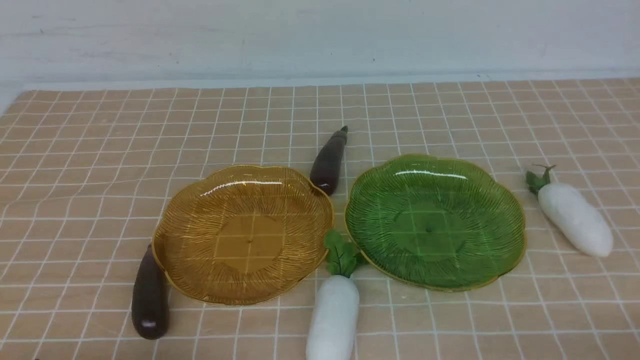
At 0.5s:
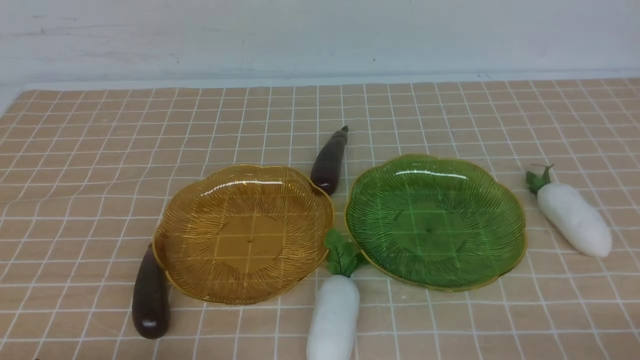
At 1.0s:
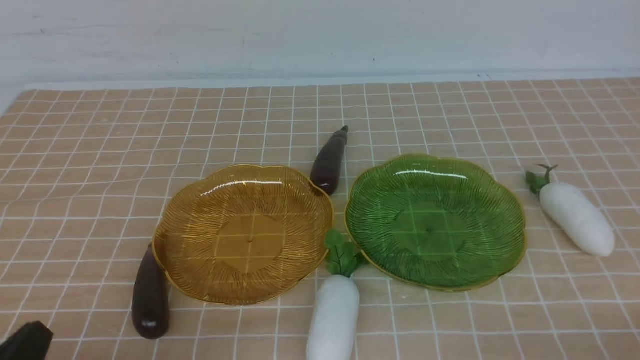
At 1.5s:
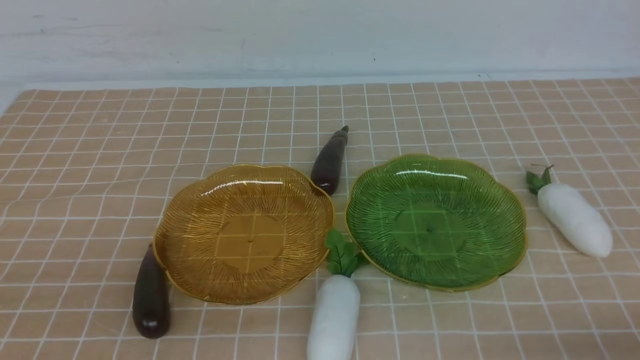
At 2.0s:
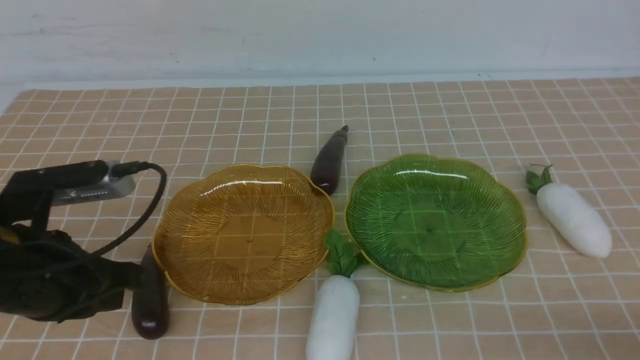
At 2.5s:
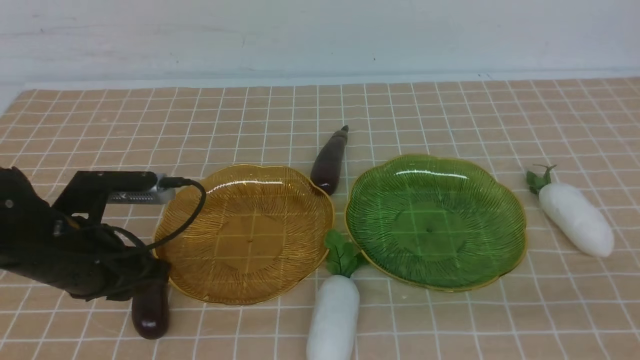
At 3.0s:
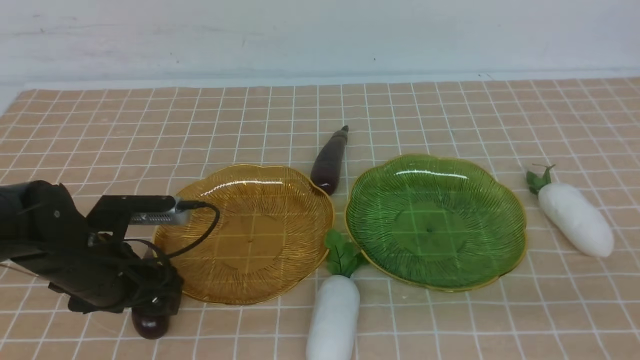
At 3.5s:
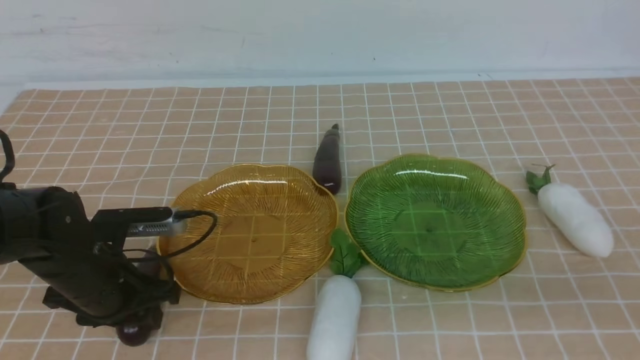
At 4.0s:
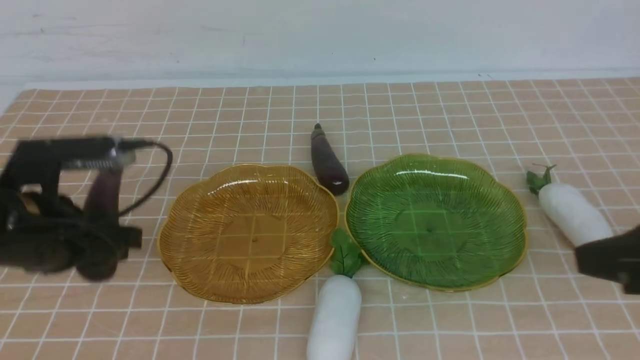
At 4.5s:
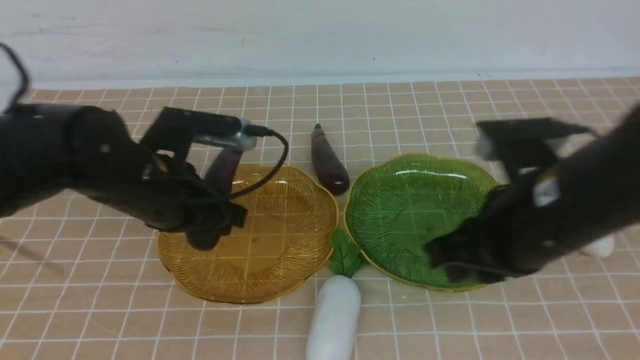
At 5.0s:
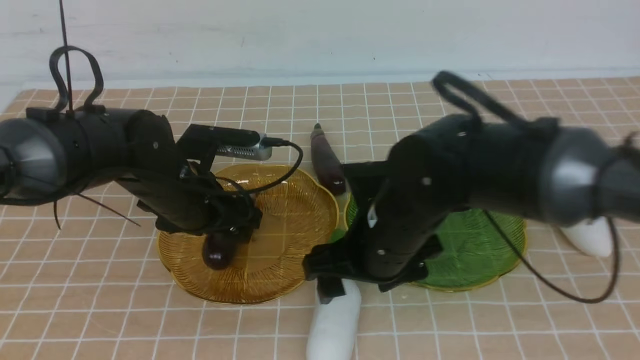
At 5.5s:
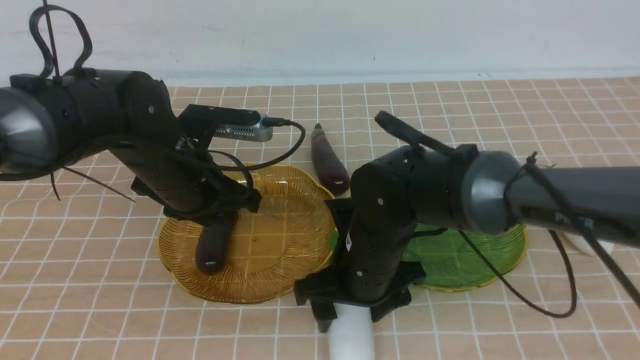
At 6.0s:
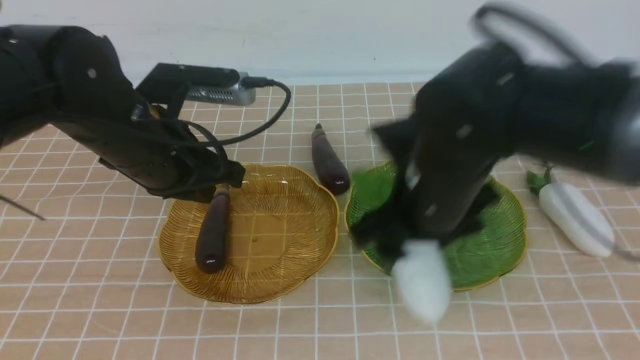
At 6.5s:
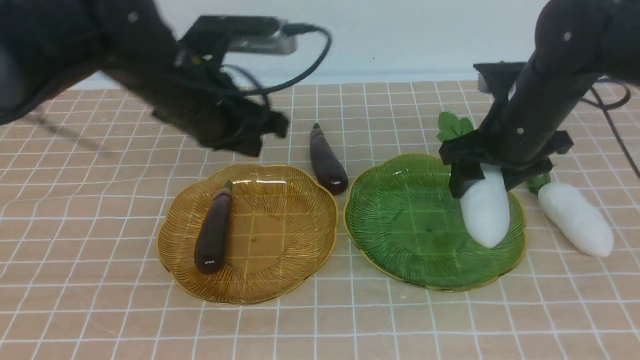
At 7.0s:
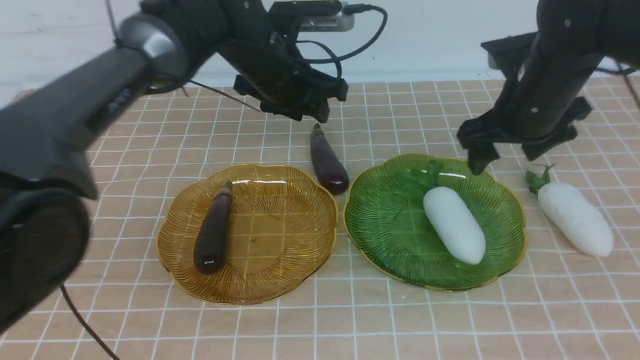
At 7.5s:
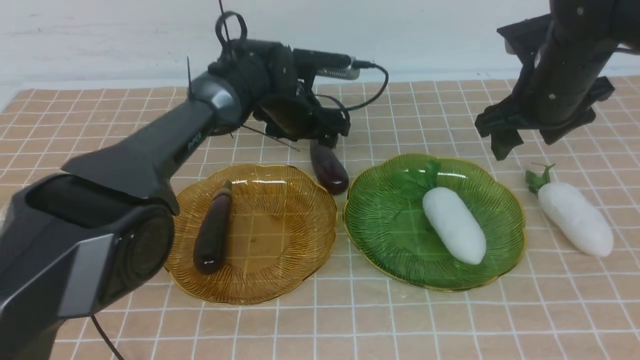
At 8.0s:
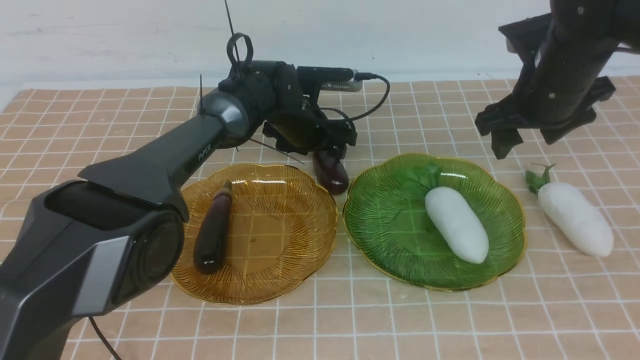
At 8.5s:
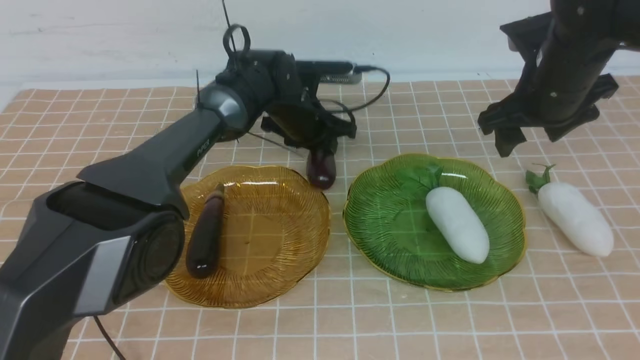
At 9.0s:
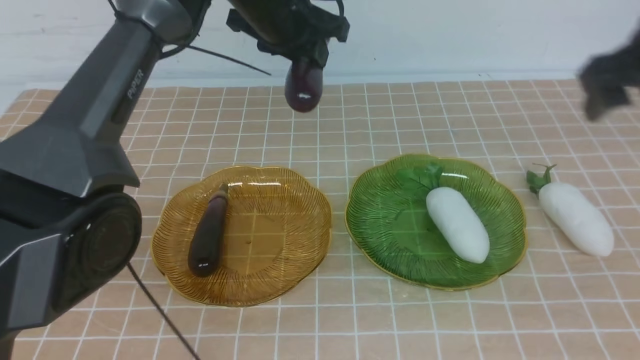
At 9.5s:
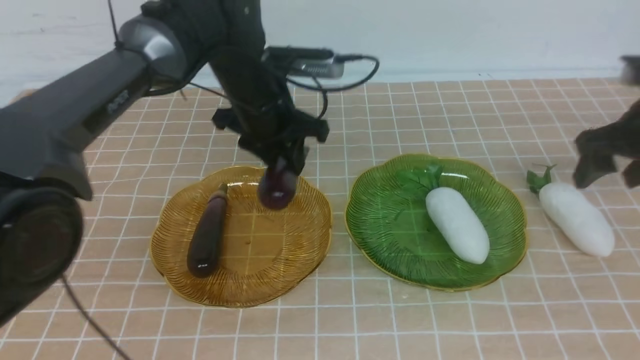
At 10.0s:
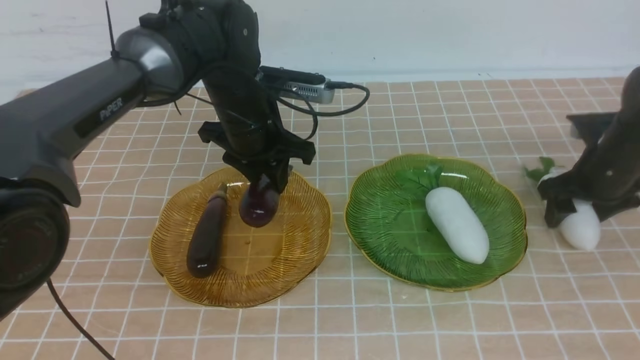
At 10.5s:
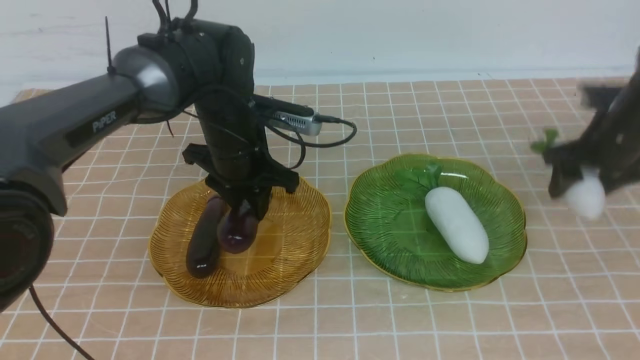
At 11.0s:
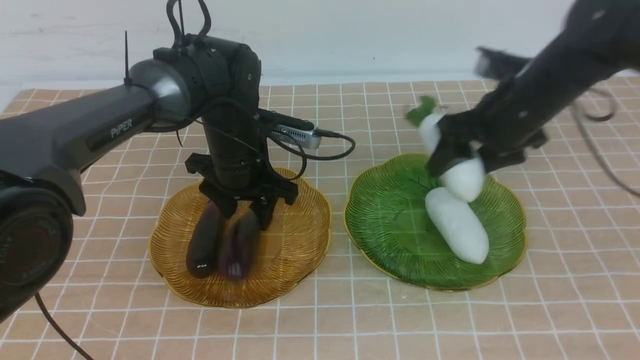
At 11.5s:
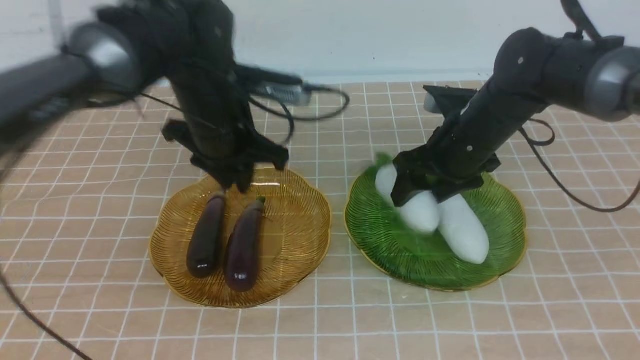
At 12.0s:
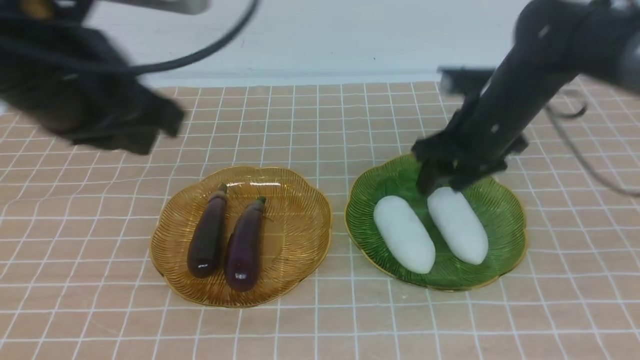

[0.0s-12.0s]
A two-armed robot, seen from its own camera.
Step, 0.0s to 5.0s: use the left arm to grab an eggplant and put it into the left plate.
Step, 5.5s to 6.5s: use the right arm to grab a radish and put it into the right plate.
Step, 7.0s to 10.5s: use the left arm to grab an eggplant and put it into the left plate.
0.0s to 2.0s: The left gripper is displaced forward and upward by about 15 cm.
2.0s to 4.0s: The left gripper travels forward by approximately 5 cm, reaches some 10 cm downward, then returns, and opens its fingers. Meanwhile the right gripper travels forward, upward and to the left by some 15 cm.
4.0s to 6.0s: The left gripper heads to the right and forward, covering roughly 10 cm, and closes; the right gripper is displaced to the left, forward and downward by about 20 cm, and opens up.
6.0s to 8.0s: The left gripper shifts some 25 cm forward, downward and to the right, and opens up. Meanwhile the right gripper heads to the right and forward, covering about 15 cm.
8.0s to 10.0s: The right gripper goes approximately 15 cm downward and to the right. Meanwhile the left gripper heads backward and upward, covering roughly 15 cm, and closes.
10.0s to 12.0s: The right gripper shifts roughly 20 cm to the left and upward, and closes its fingers. The left gripper moves backward, upward and to the left, some 25 cm, and closes its fingers.

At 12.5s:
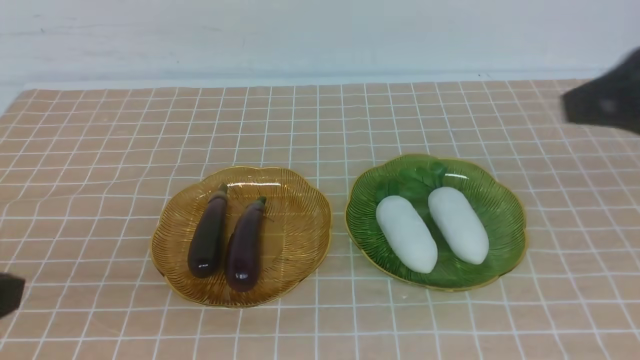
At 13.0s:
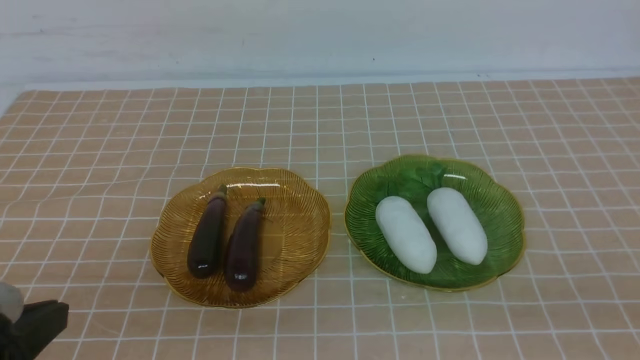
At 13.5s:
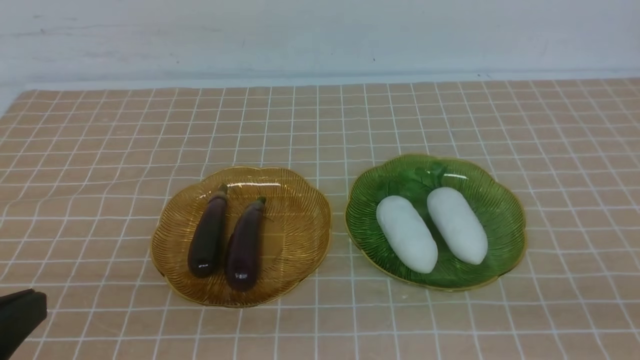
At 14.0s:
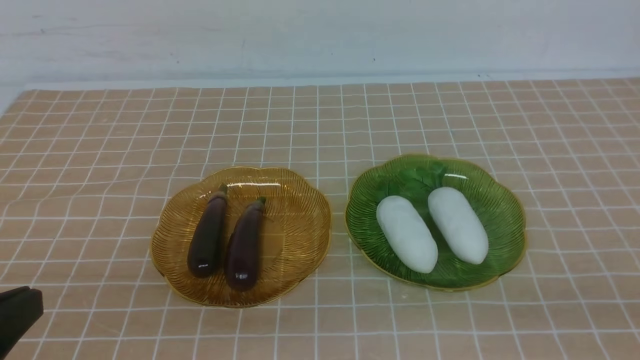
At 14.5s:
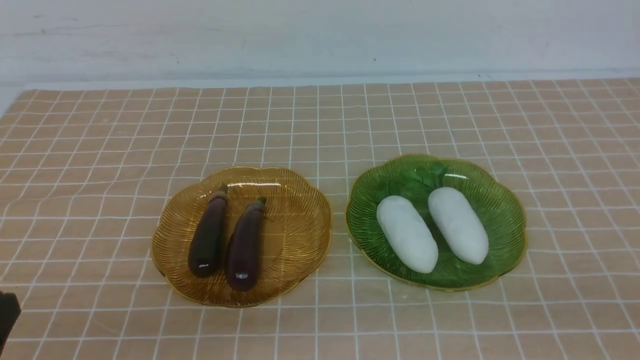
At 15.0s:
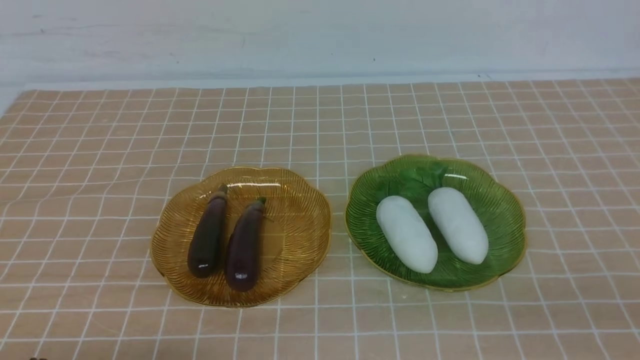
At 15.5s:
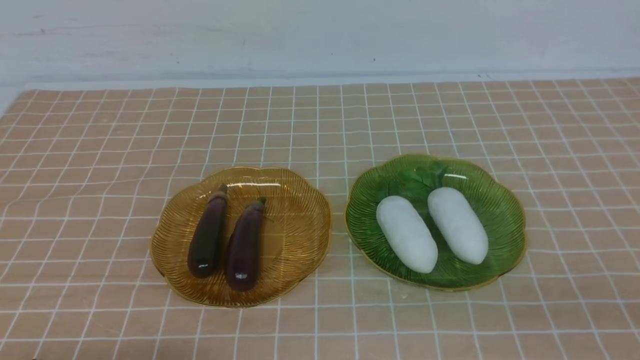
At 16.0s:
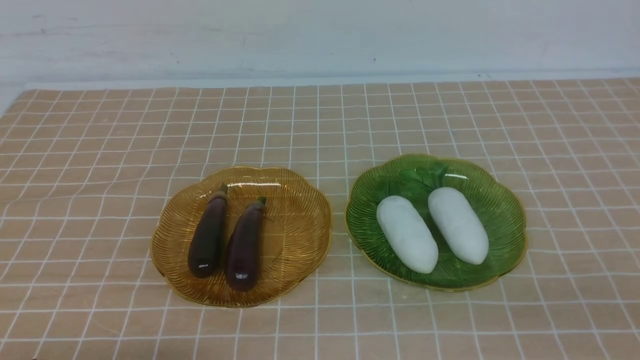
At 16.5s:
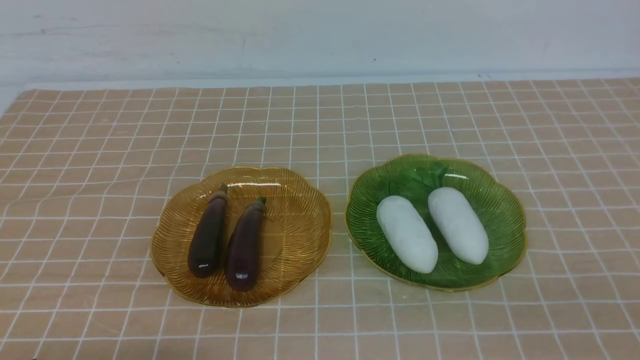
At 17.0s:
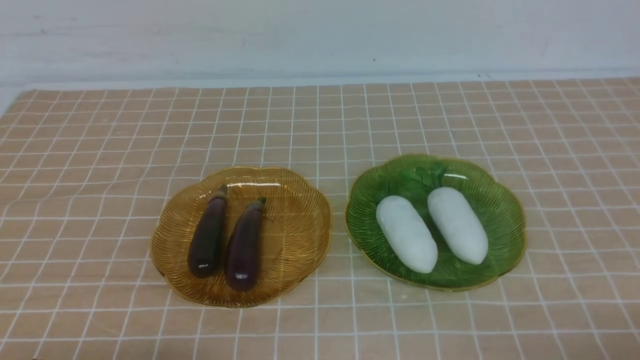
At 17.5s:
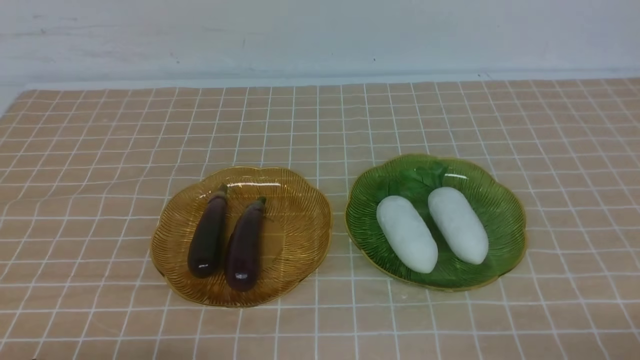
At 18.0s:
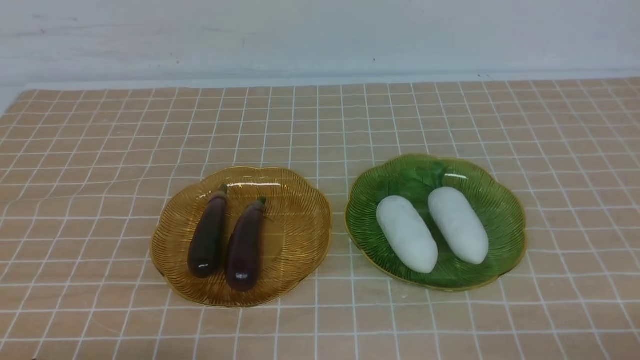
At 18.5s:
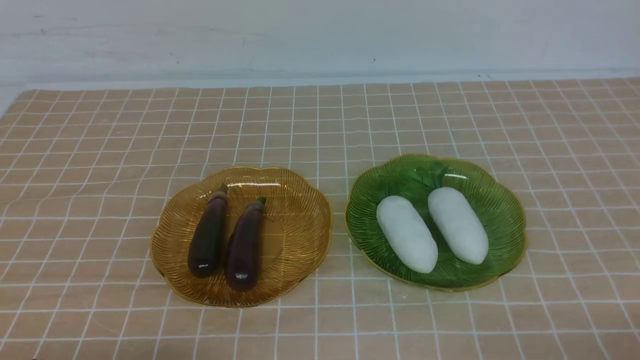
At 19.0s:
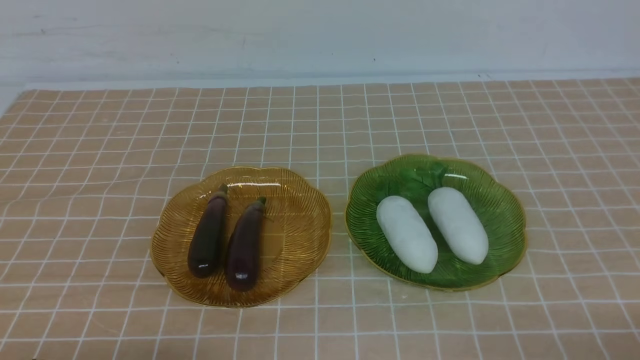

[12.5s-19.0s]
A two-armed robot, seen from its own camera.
12.5s to 14.5s: The right gripper heads downward and backward, covering approximately 15 cm; the left gripper goes about 10 cm downward.
14.5s to 17.0s: The left gripper moves downward, some 10 cm.
